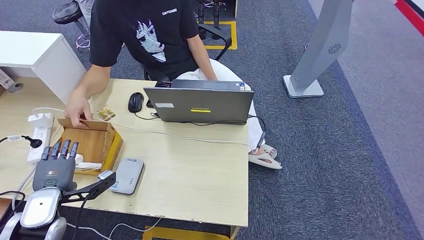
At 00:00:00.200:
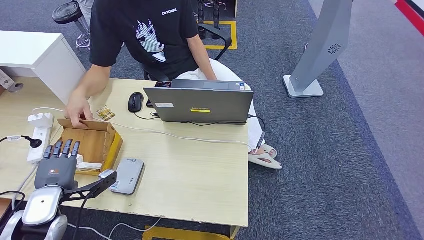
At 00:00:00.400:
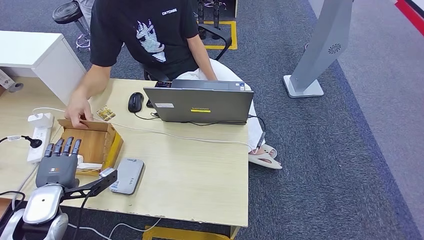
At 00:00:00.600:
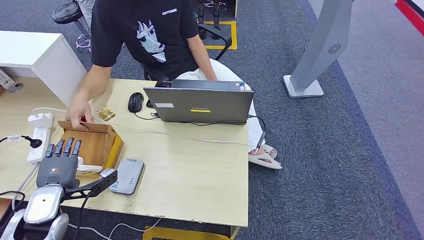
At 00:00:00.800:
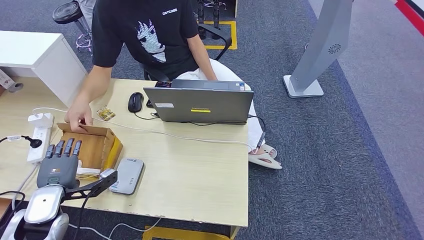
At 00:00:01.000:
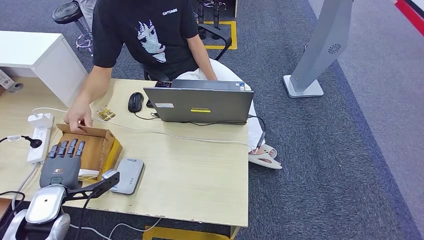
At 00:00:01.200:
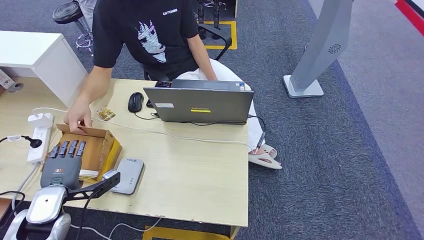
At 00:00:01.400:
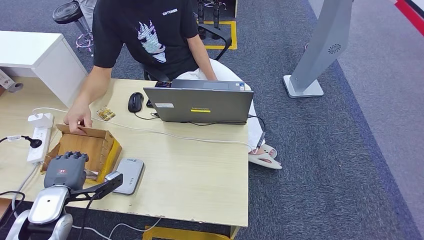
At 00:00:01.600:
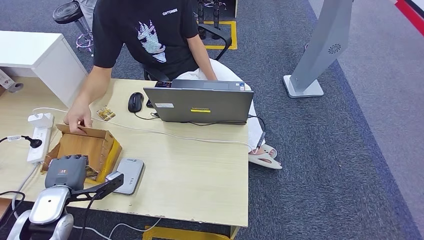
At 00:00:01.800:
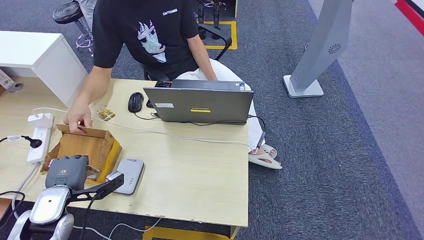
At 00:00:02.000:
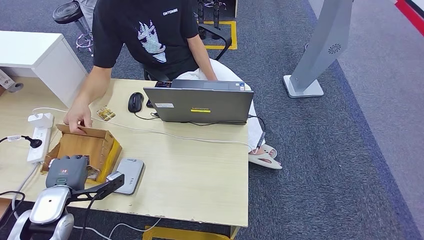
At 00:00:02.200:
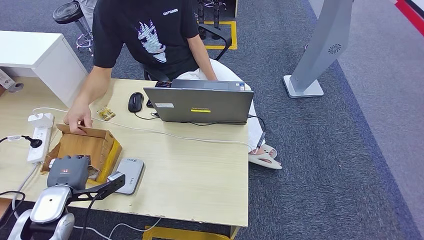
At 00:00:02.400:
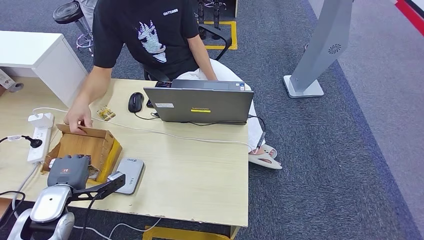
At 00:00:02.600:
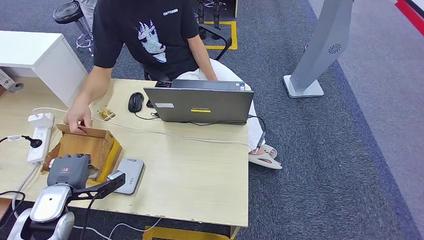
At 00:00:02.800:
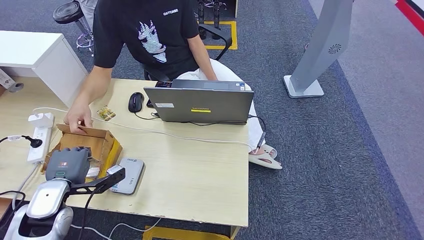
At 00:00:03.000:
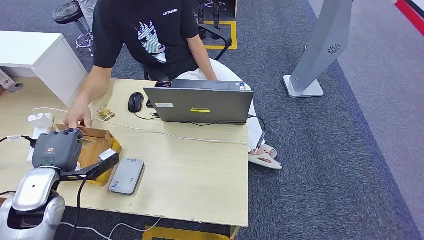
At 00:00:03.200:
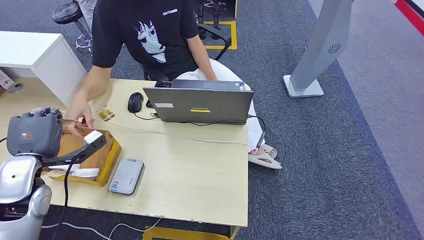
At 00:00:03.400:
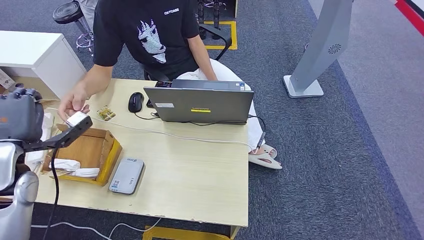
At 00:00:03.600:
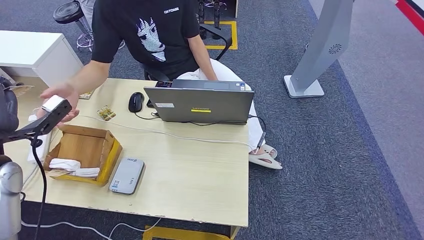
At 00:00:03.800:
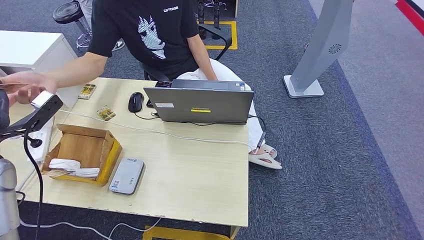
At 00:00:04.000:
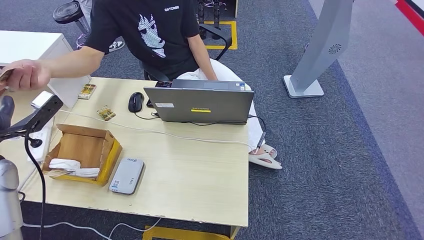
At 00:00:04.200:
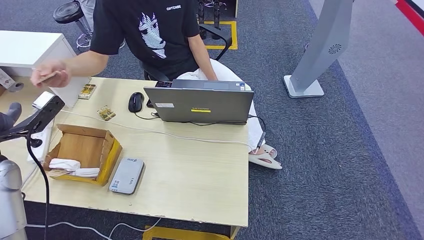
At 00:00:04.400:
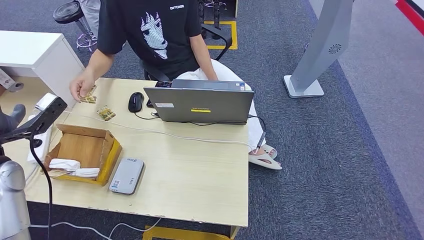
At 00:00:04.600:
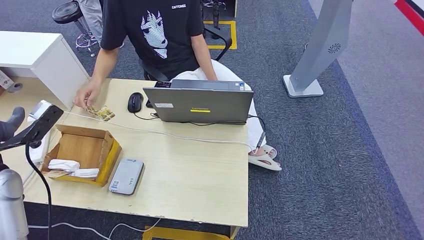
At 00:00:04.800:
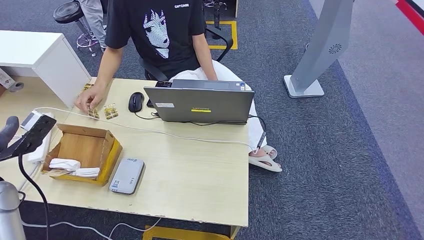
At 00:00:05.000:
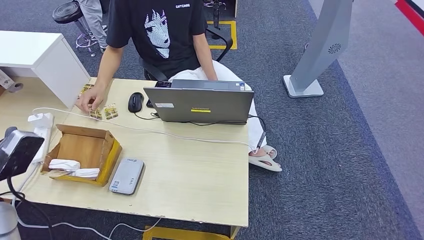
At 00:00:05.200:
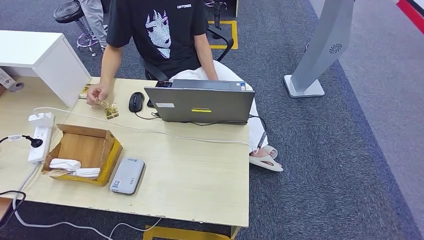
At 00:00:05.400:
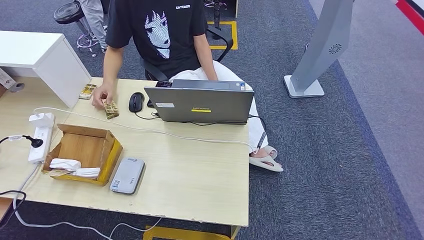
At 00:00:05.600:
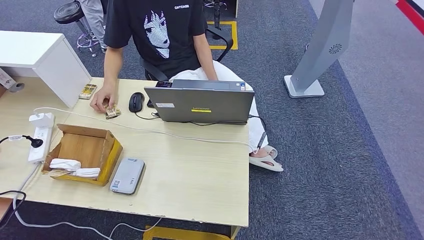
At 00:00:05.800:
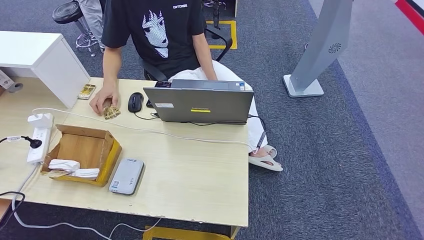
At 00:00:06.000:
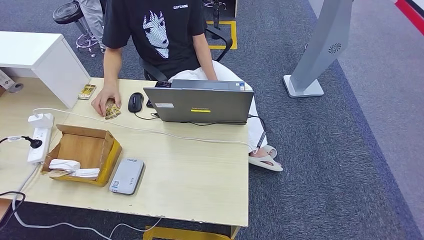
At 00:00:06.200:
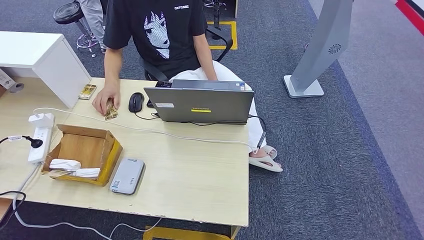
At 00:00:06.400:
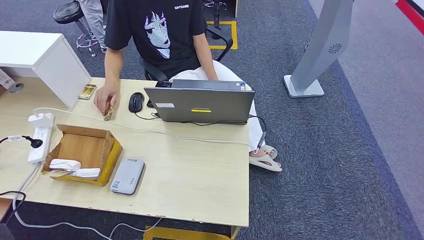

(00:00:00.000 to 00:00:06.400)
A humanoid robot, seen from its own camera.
Step, 00:00:00.000 - 00:00:02.800: Pick up the room key from the key card box.
Step, 00:00:03.000 - 00:00:06.400: Hand the room key to the person.
00:00:00.000 - 00:00:01.600: The hands move only a little.
00:00:01.600 - 00:00:03.200: The left hand is displaced upward by some 10 cm.
00:00:03.200 - 00:00:04.800: The left hand shifts by about 5 cm.
00:00:04.800 - 00:00:06.400: The left hand goes roughly 25 cm downward and backward.
